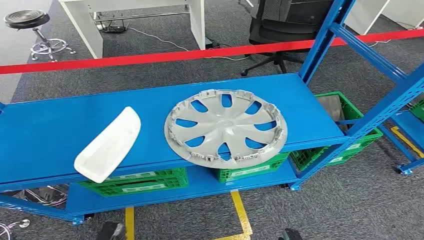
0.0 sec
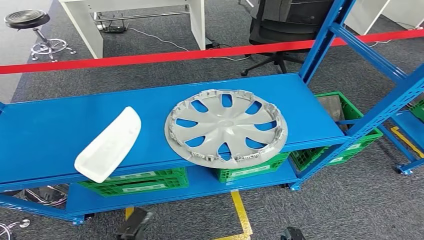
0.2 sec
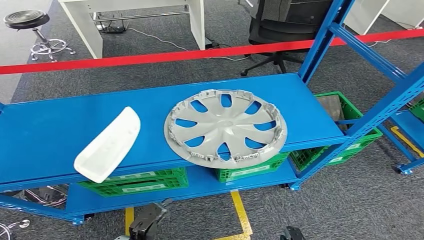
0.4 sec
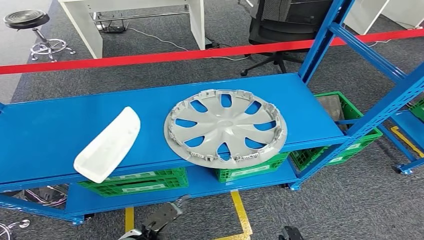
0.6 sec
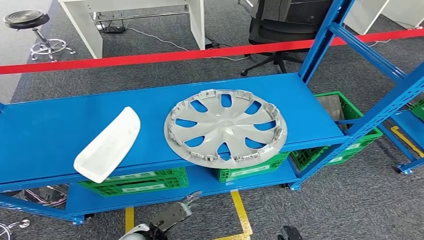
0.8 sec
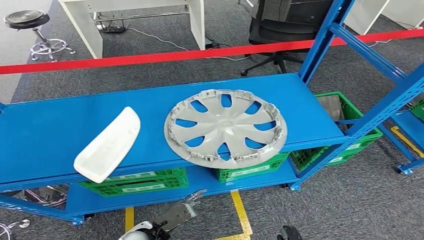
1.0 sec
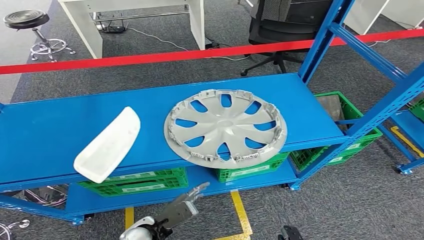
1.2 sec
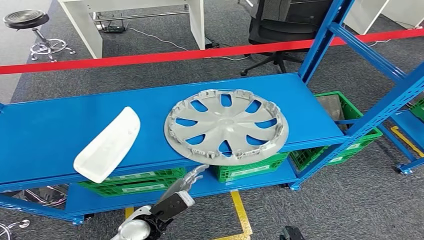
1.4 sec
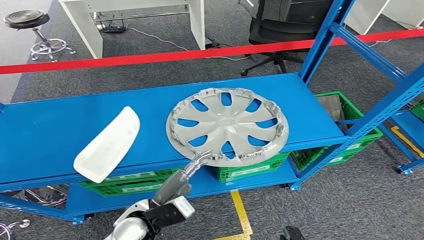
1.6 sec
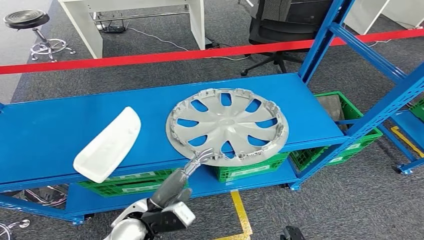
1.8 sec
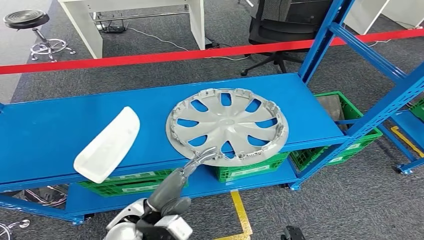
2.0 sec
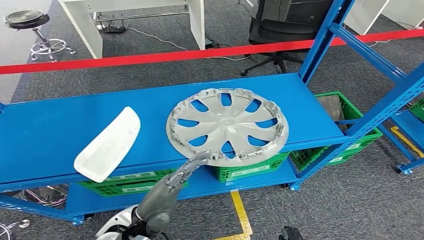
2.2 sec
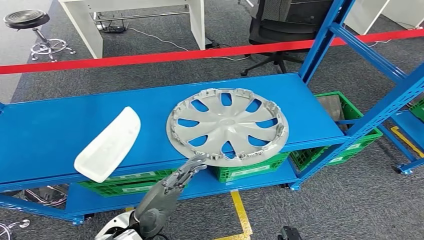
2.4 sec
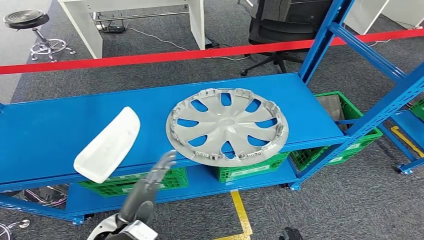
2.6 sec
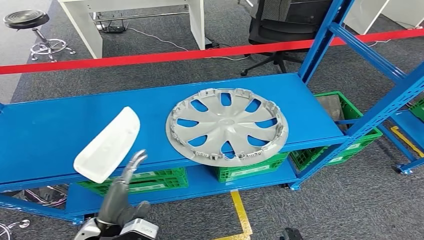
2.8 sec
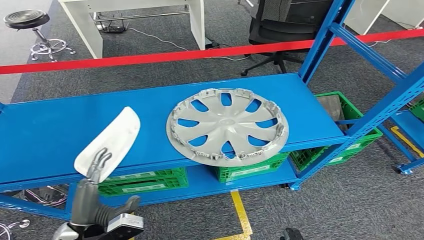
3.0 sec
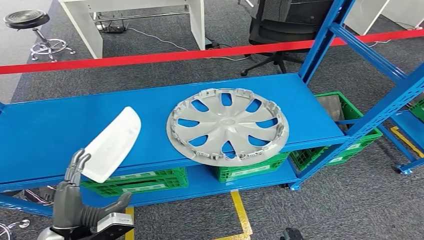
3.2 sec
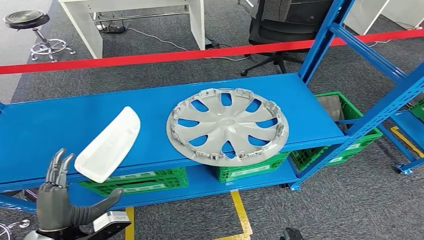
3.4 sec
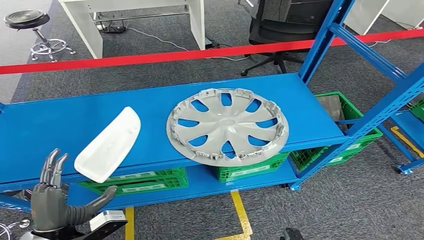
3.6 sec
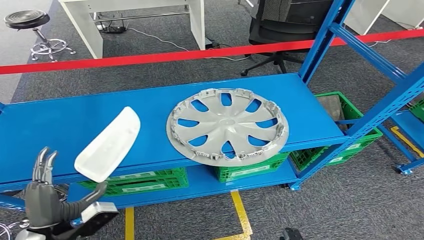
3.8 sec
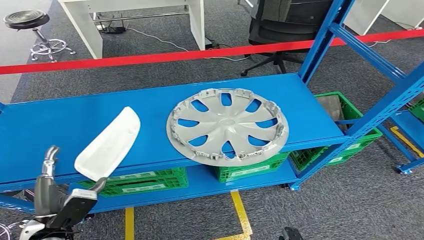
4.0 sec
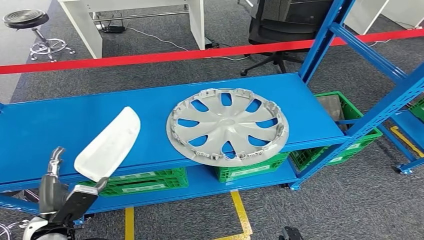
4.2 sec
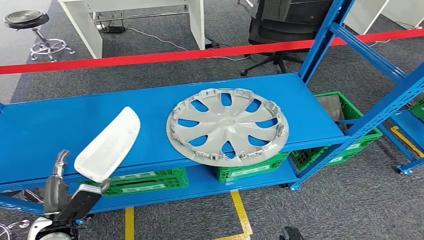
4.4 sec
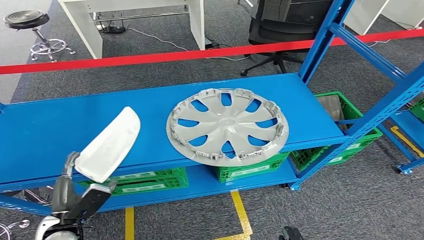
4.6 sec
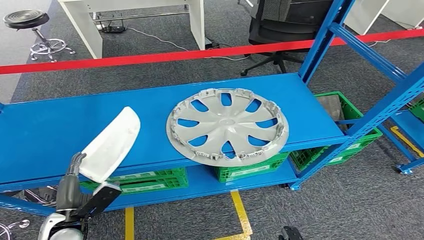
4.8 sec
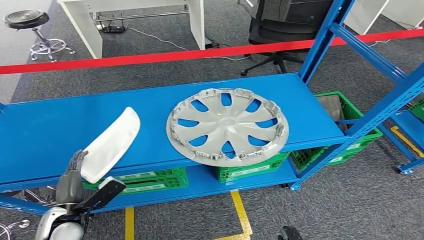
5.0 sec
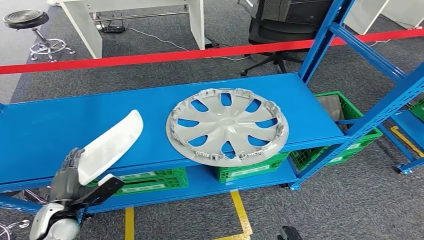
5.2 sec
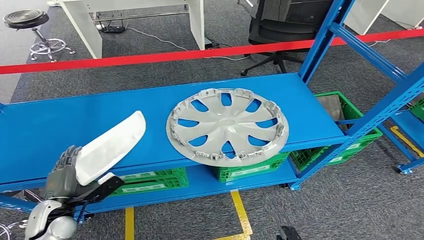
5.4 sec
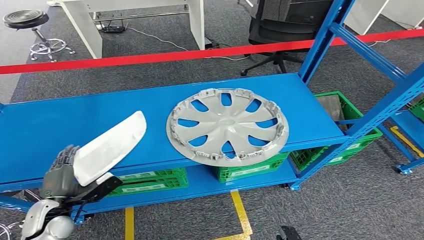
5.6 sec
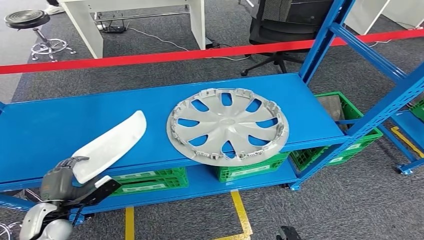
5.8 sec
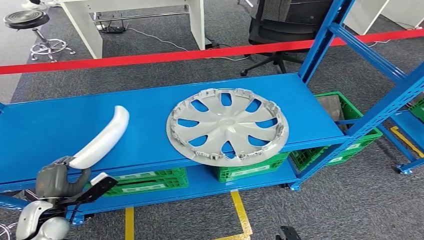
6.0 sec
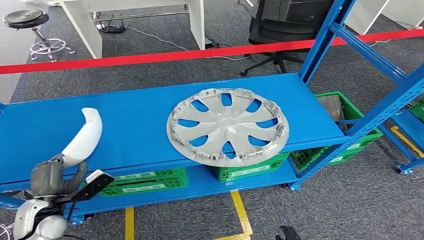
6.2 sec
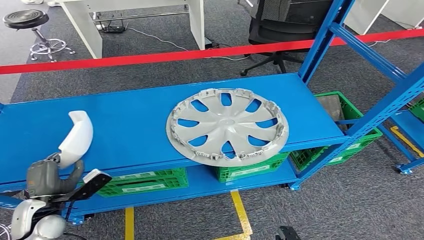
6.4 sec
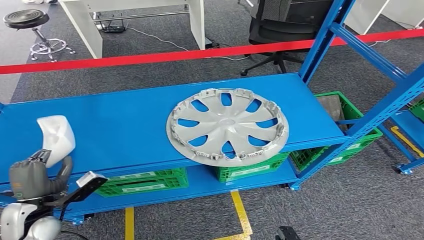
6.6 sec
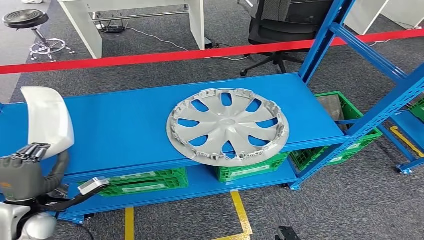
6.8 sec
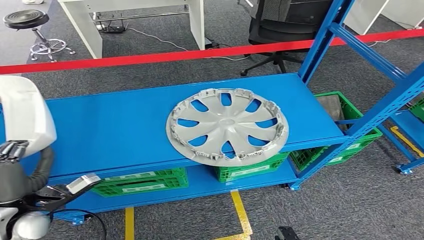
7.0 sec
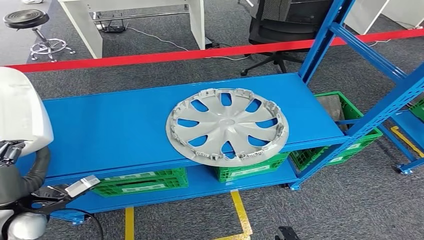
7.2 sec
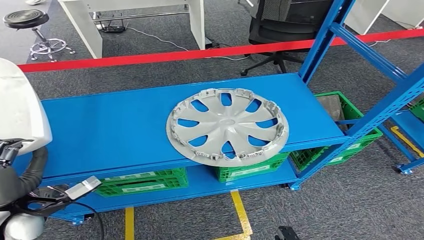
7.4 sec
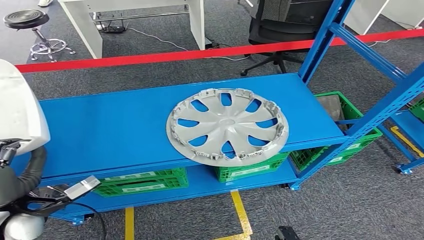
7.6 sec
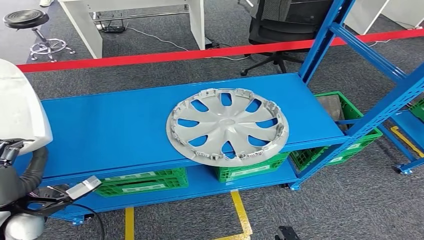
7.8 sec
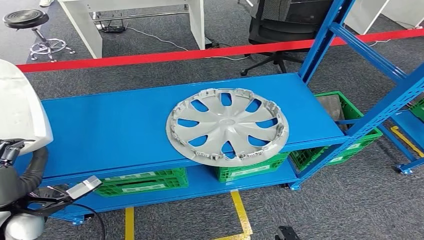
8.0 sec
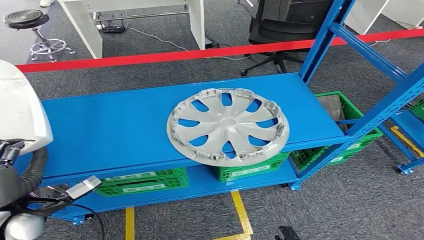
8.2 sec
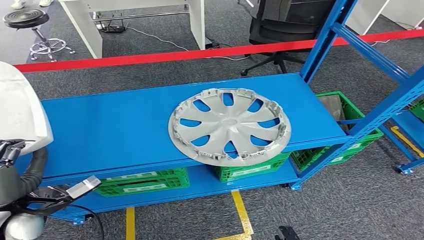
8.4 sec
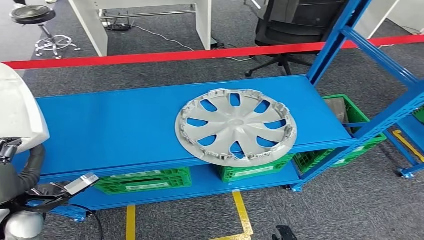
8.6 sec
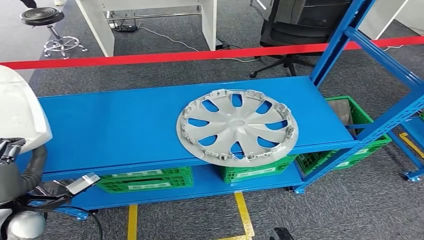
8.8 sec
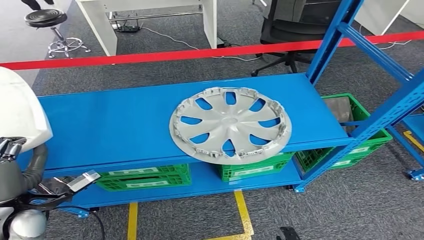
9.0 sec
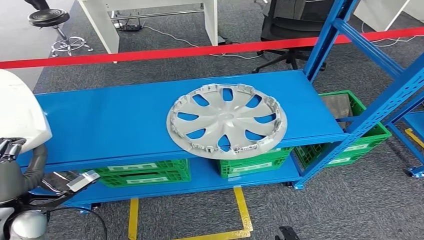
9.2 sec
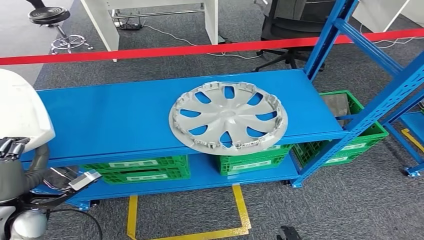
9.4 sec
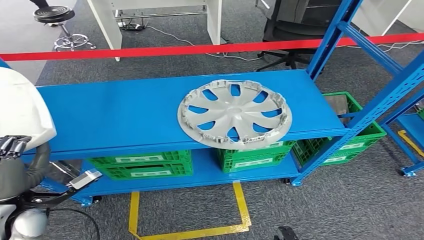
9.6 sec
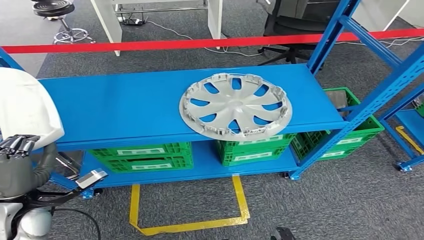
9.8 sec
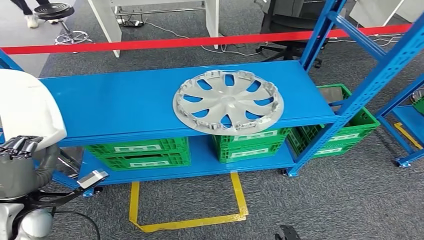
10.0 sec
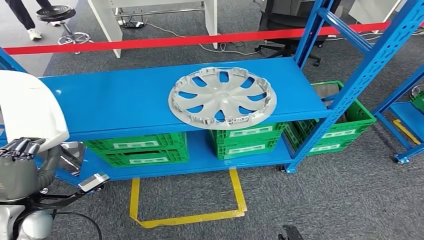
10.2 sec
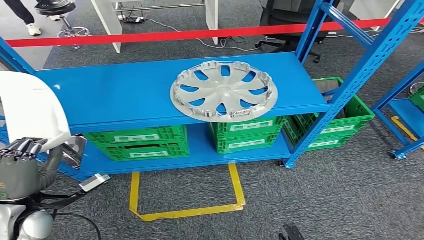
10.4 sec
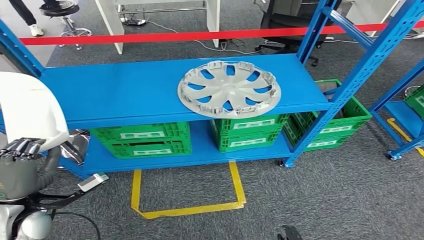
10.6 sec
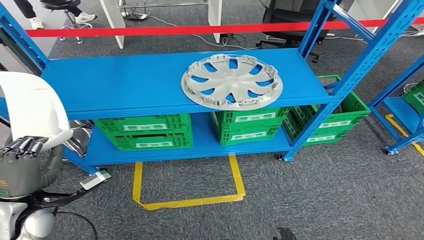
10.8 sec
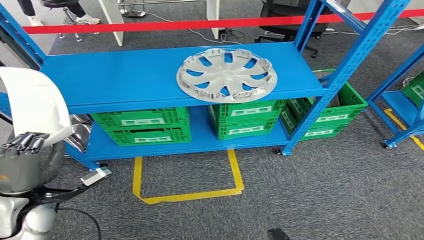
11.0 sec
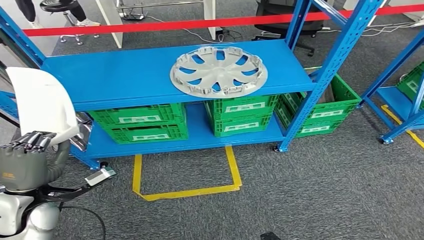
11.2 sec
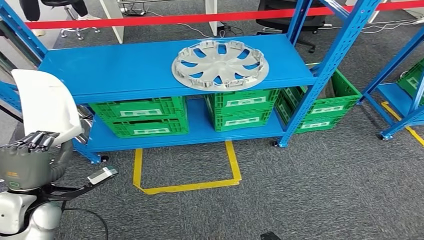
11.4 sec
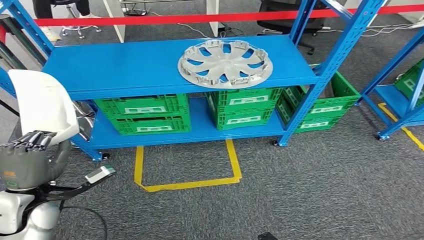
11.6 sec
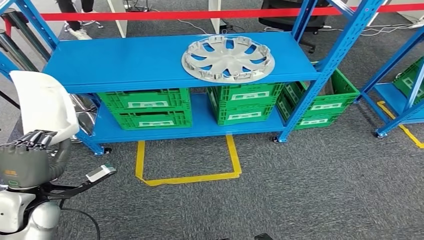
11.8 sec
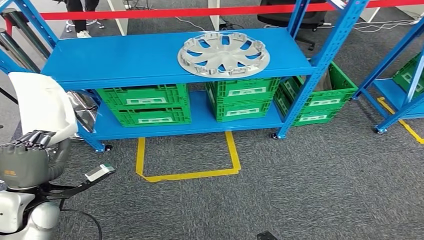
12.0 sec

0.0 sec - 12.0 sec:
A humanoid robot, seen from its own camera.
Step, 0.0 sec - 8.2 sec: Pick up the small component from the shelf.
1.6 sec - 3.0 sec: The left hand heads to the left, covering about 10 cm.
3.0 sec - 4.4 sec: The left hand heads to the left, covering roughly 5 cm.
4.4 sec - 6.0 sec: The left hand ends up some 5 cm from where it was.
6.0 sec - 7.6 sec: The left hand heads upward, covering about 15 cm.

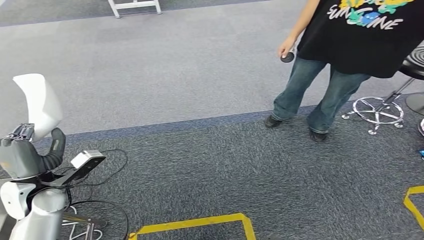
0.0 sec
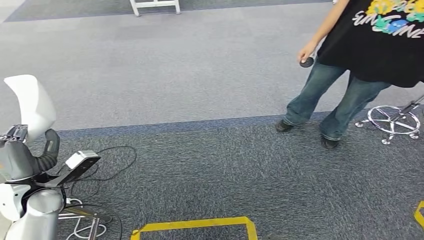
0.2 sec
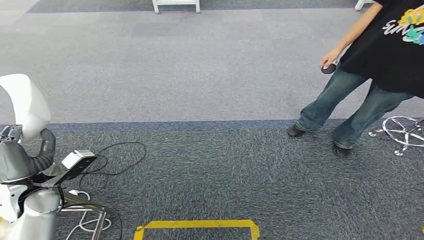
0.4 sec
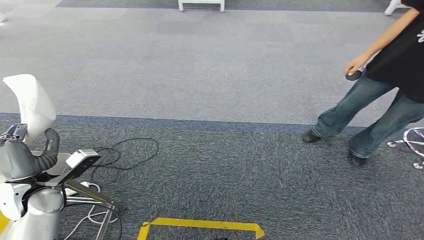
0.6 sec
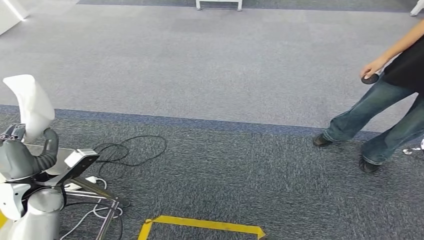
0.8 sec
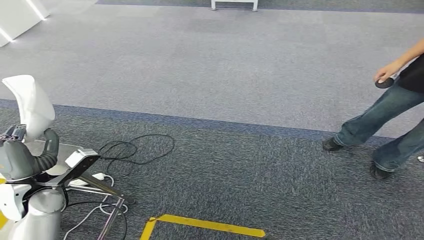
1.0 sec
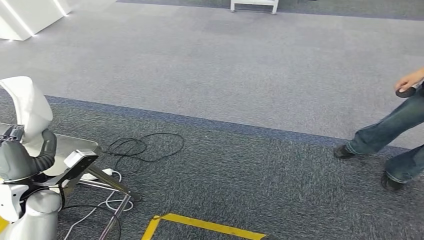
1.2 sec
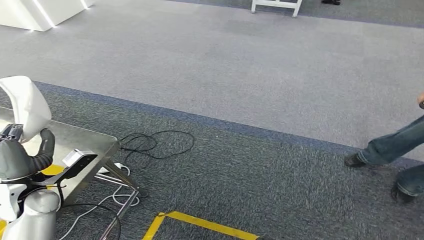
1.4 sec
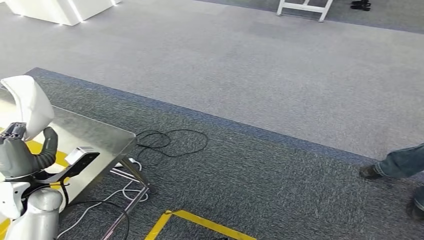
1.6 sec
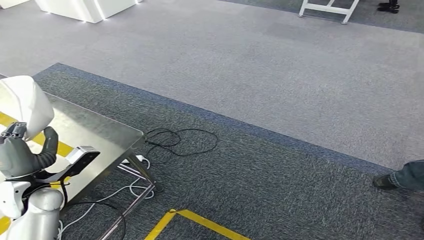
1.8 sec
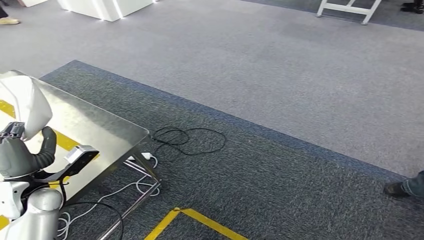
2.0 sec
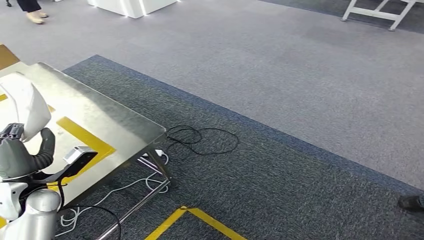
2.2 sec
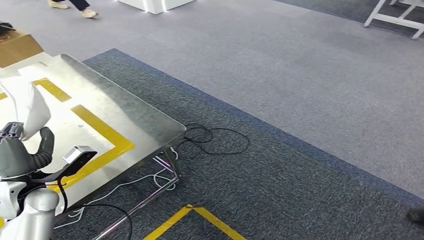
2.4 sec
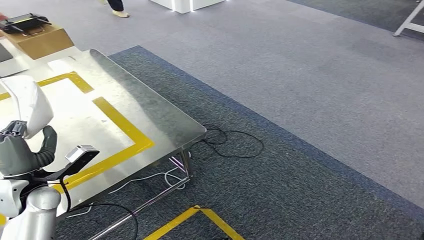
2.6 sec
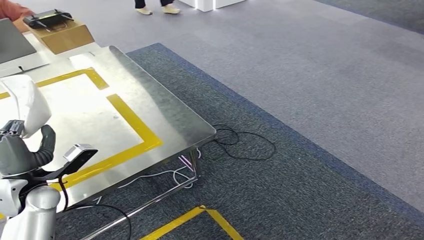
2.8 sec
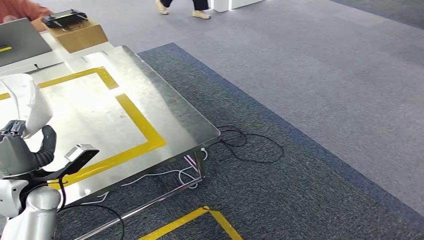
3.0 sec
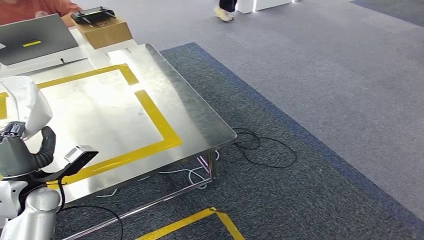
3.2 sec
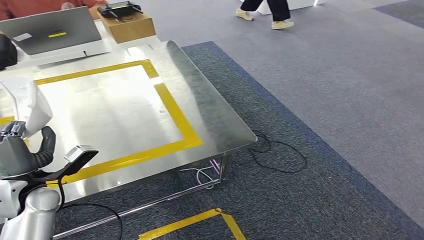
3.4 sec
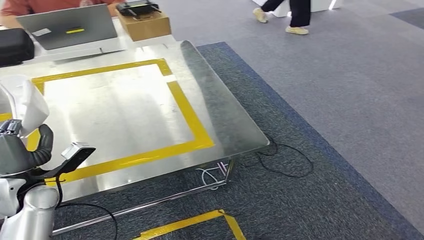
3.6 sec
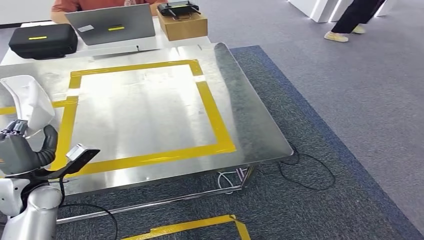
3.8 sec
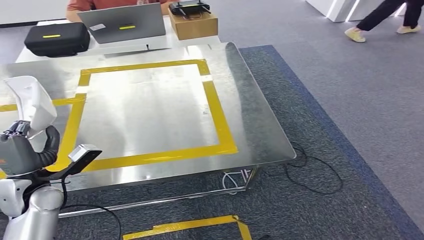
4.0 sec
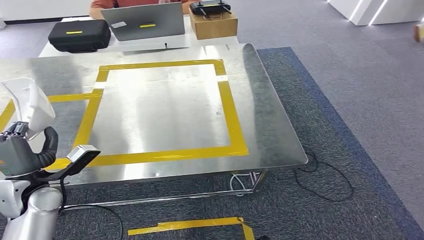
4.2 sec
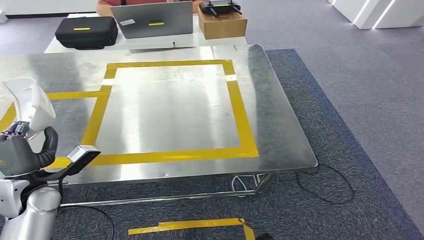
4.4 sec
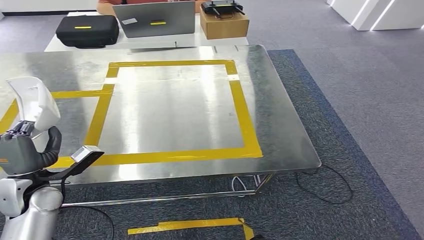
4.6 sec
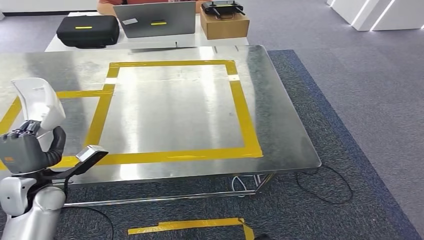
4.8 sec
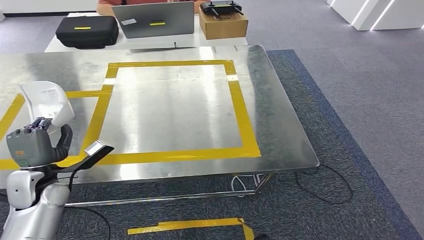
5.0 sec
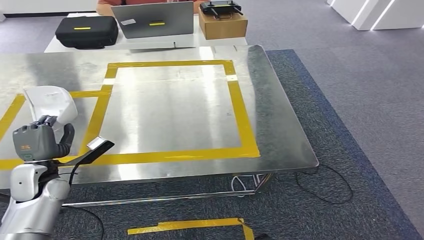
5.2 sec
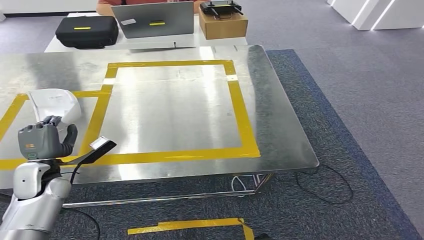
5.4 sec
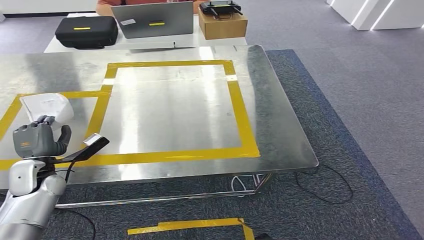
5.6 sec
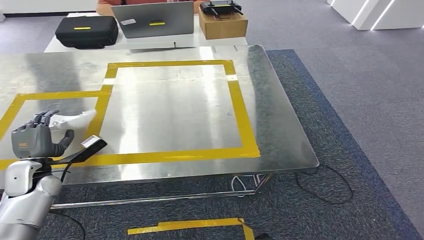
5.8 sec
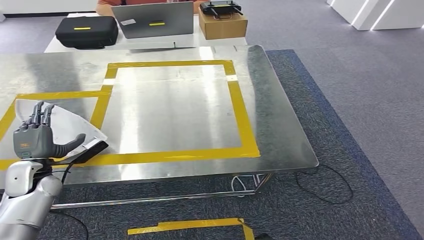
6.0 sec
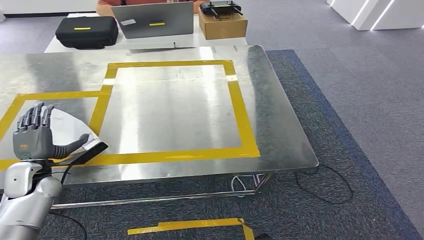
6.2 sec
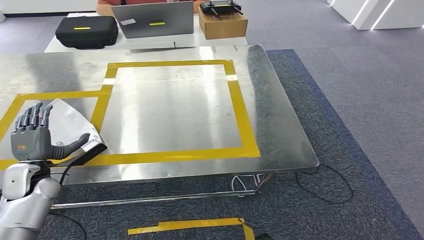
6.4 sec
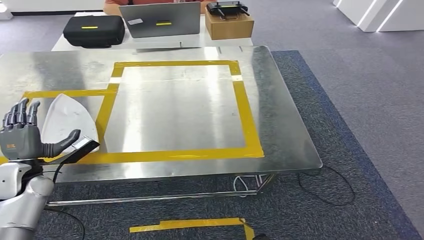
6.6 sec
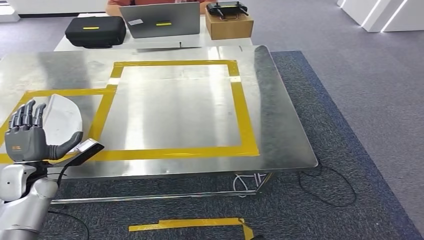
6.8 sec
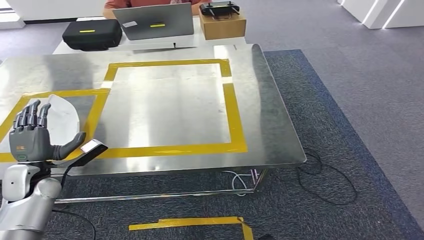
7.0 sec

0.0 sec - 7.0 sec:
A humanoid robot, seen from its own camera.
Step, 0.0 sec - 3.8 sec: Move the small component to the workbench.
